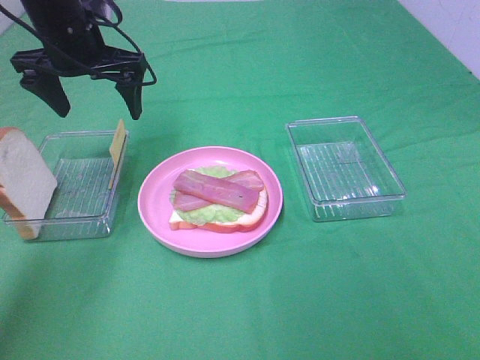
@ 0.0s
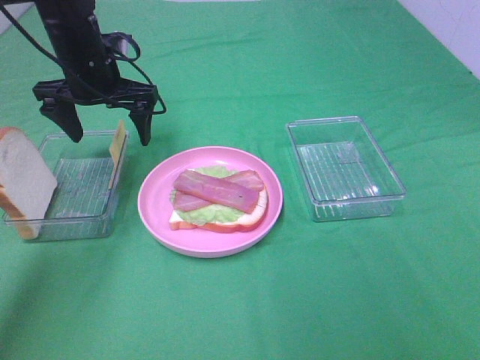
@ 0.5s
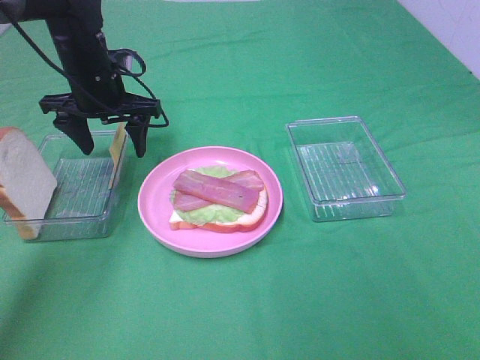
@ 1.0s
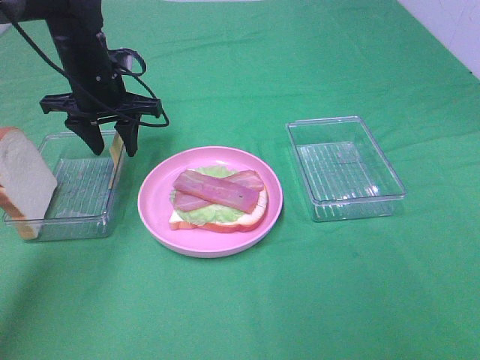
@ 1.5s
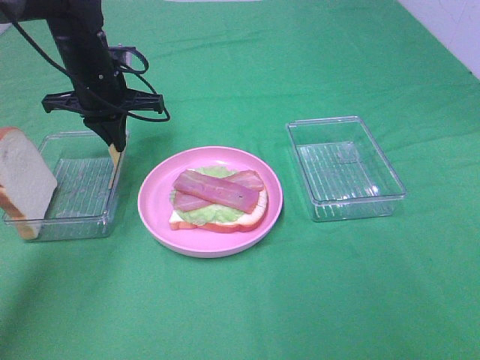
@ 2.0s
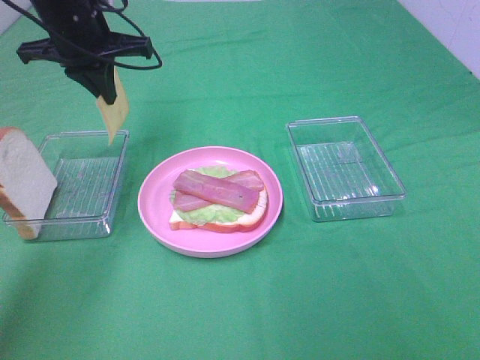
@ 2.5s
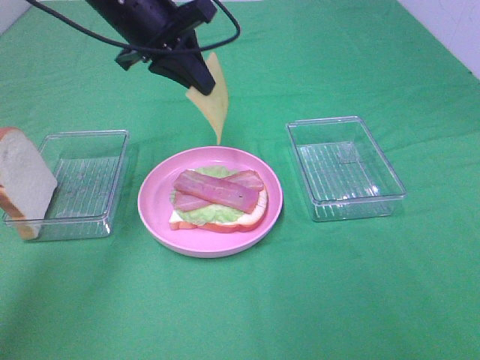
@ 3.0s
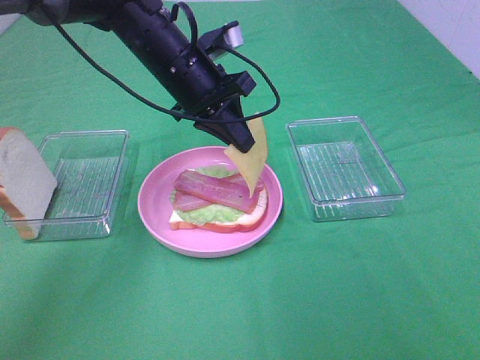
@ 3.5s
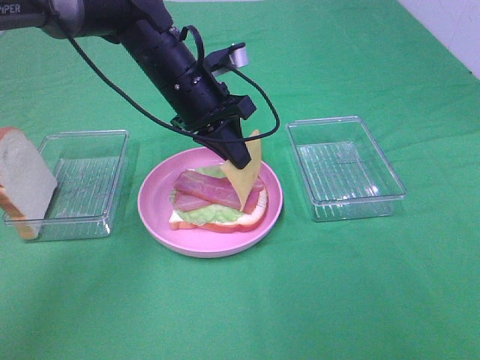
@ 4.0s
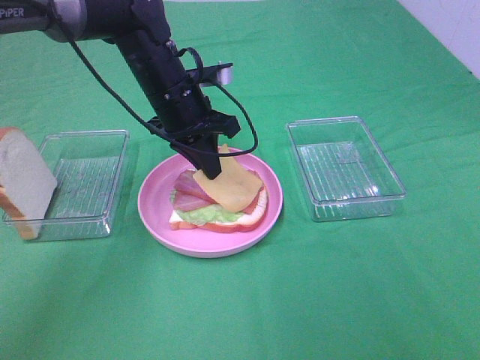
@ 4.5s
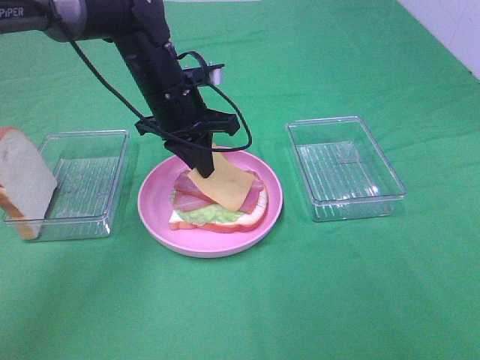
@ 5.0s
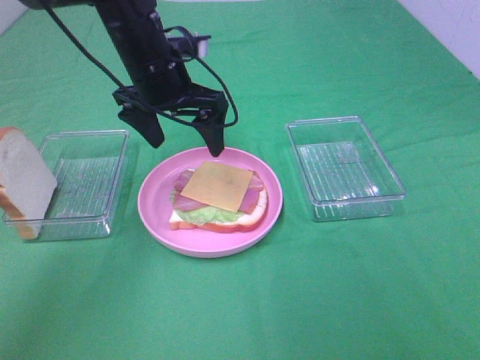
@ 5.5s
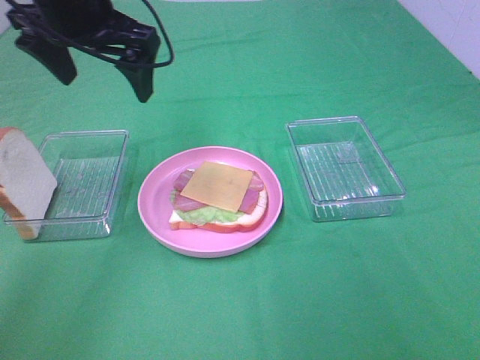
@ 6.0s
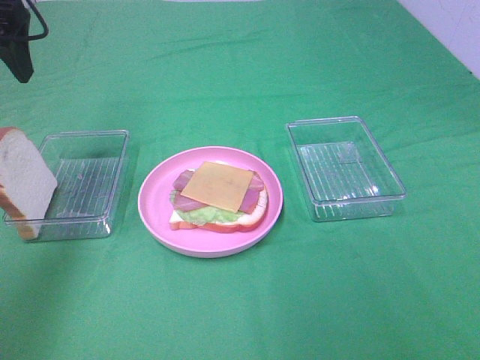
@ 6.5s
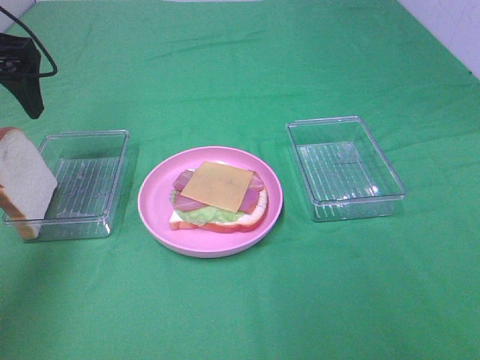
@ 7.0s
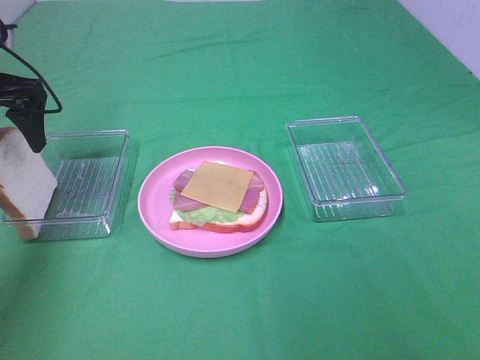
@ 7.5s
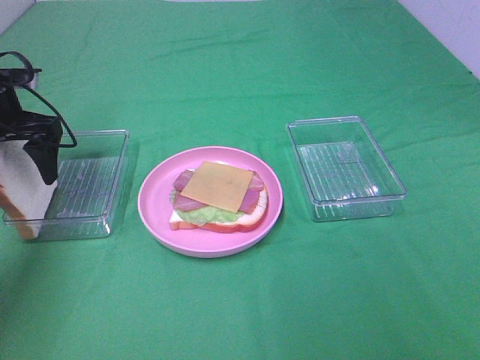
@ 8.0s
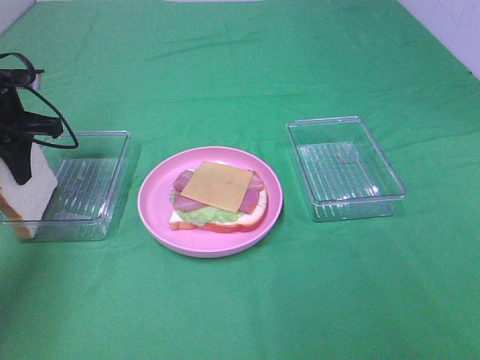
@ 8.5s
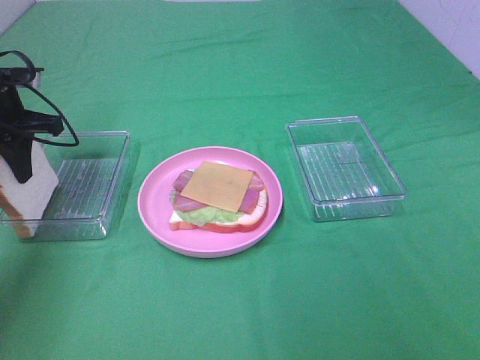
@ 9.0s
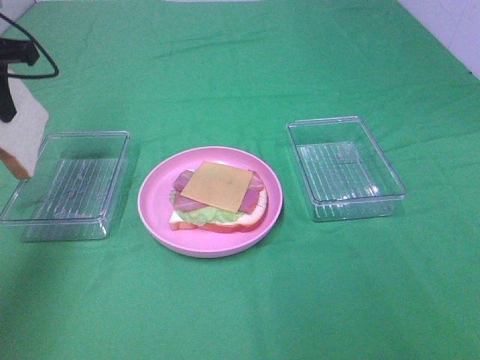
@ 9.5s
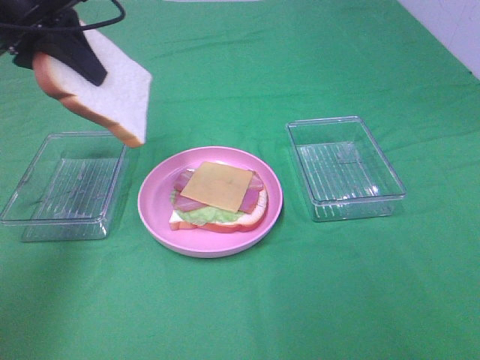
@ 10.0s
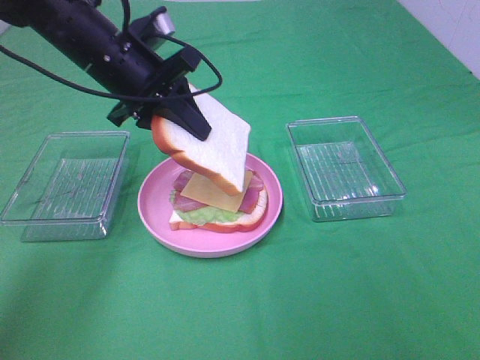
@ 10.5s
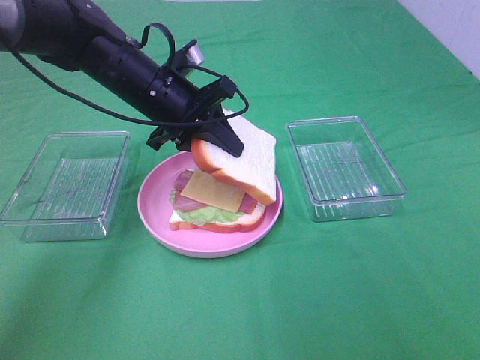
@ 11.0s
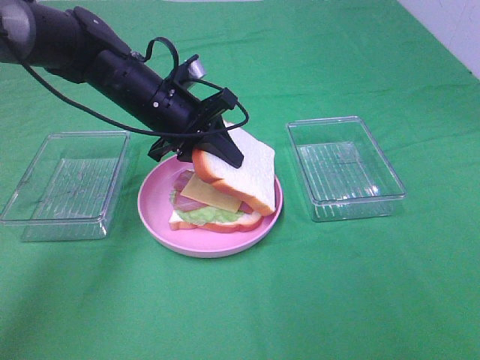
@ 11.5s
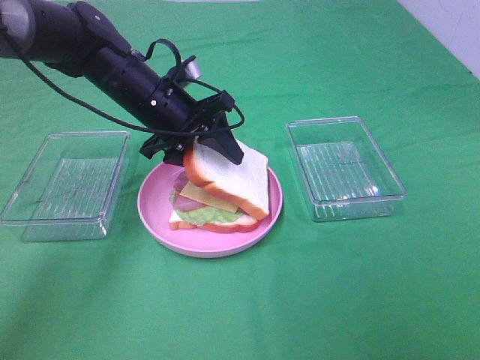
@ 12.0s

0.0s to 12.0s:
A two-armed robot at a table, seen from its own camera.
Task of the whole recording: Make sandwiches.
Step, 0.0s to 2.0s: Left hand:grab the cheese slice.
Step, 2.5s to 5.0s: Left hand:place the cheese slice on top of the bacon.
Step, 5.5s to 9.0s: Left hand:grab the bread slice.
0.0s to 2.0s: The left gripper goes about 5 cm downward, and closes its fingers.
2.0s to 4.0s: The left gripper moves to the right, about 10 cm.
4.0s to 6.0s: The left gripper shifts about 15 cm upward and to the left, and opens up.
6.0s to 8.0s: The left gripper travels to the left and downward by about 20 cm.
8.0s to 10.0s: The left gripper heads upward and to the right, covering some 15 cm, and closes up.
10.0s to 12.0s: The left gripper travels downward and to the right by some 20 cm.

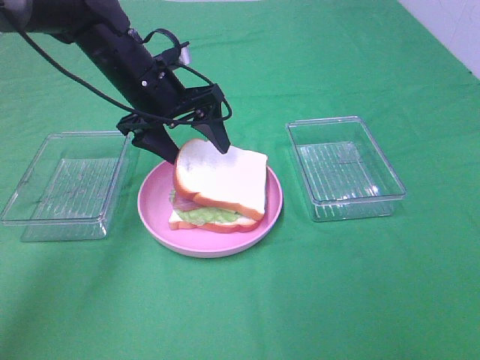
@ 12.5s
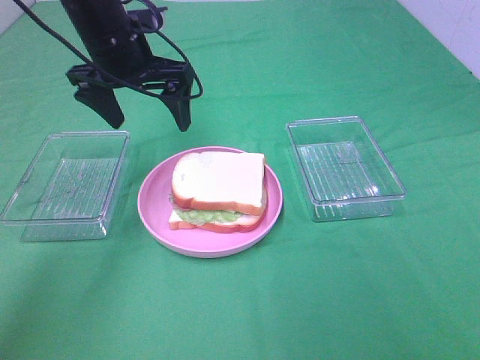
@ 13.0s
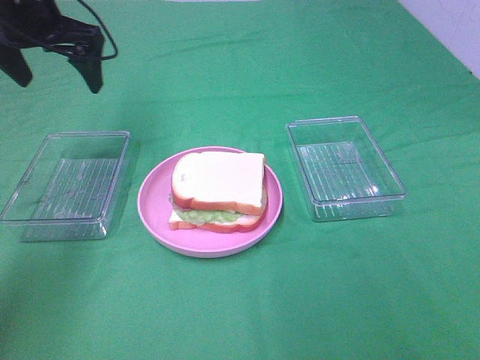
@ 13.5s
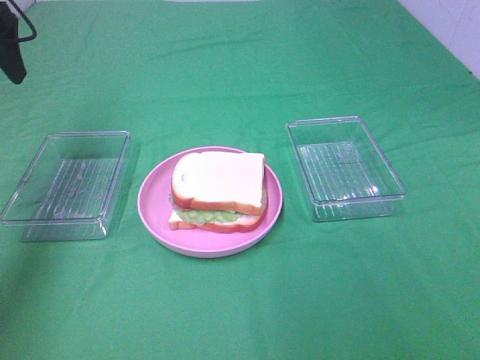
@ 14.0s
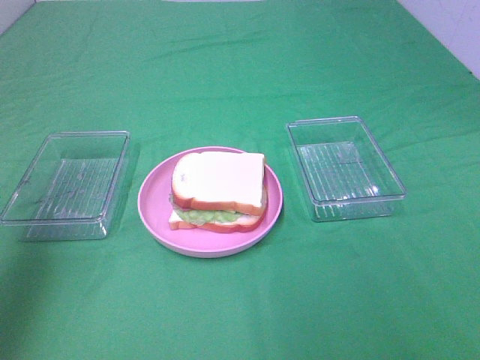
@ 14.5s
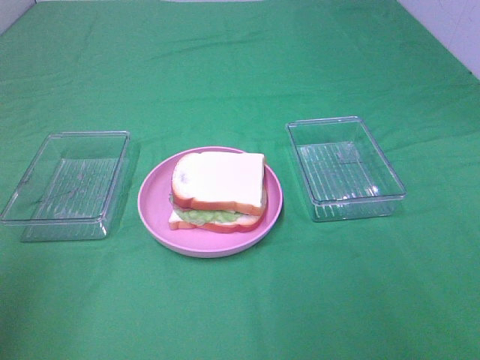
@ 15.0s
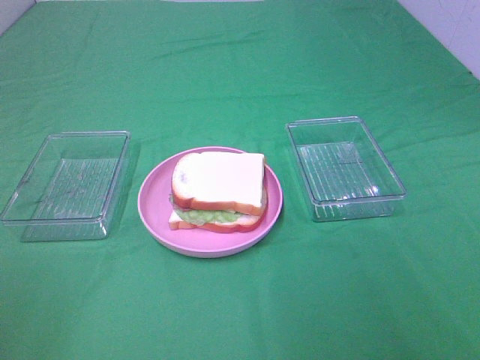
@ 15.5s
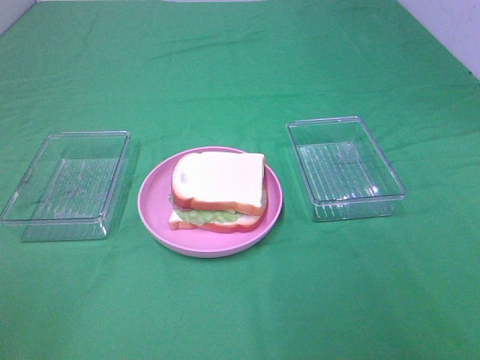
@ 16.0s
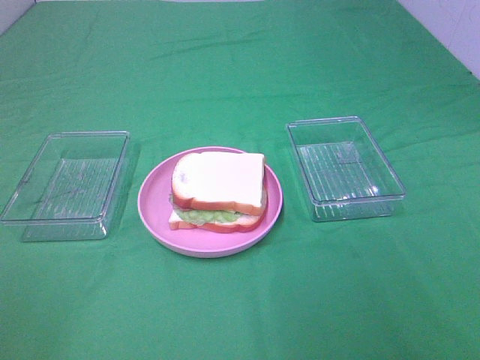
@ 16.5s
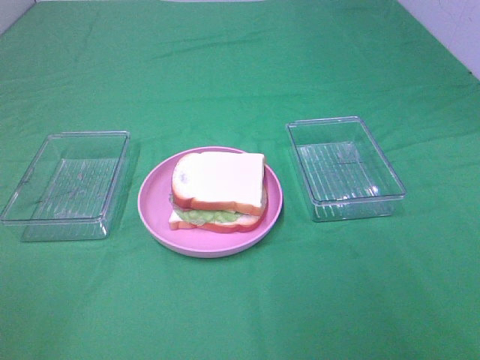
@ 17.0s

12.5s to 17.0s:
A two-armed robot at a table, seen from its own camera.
Task of the whole recording: Make sandwiches.
12.5s to 14.5s: The left gripper shifts roughly 30 cm to the left, backward and upward.
14.5s to 17.0s: The left gripper goes some 25 cm backward.

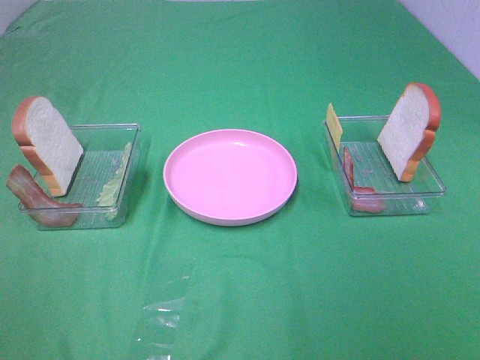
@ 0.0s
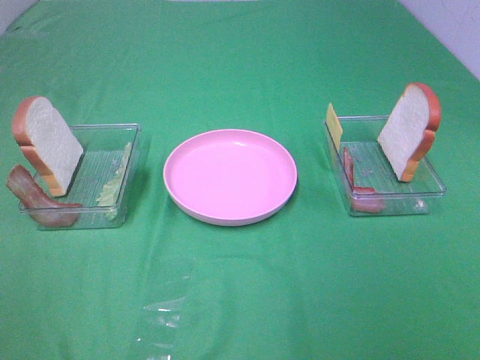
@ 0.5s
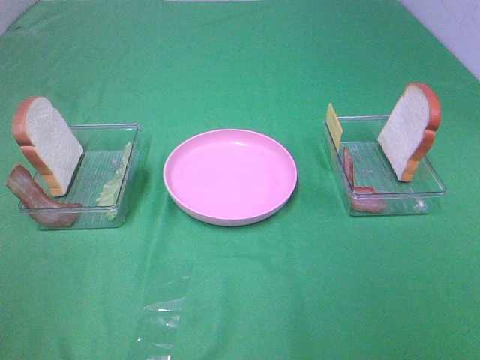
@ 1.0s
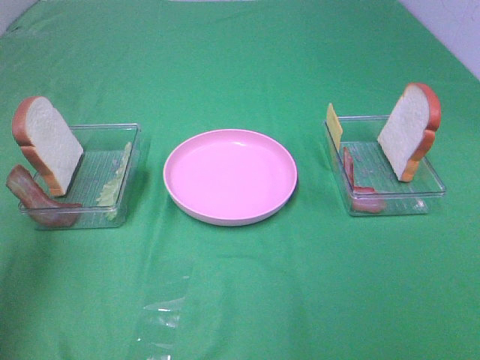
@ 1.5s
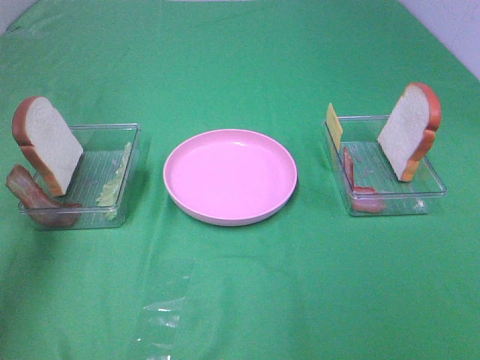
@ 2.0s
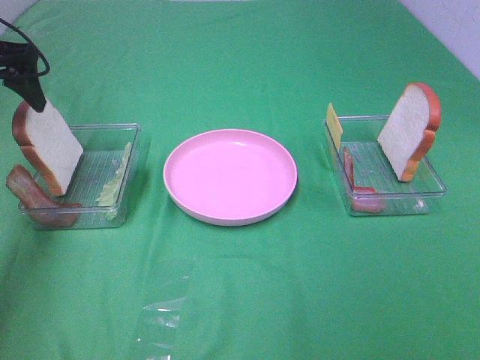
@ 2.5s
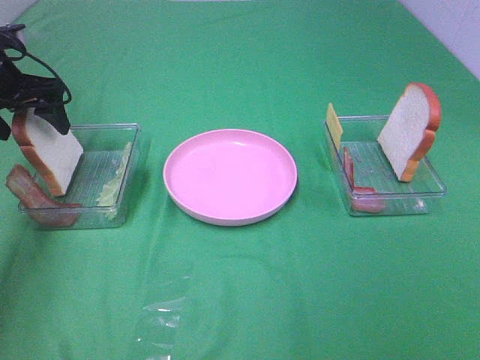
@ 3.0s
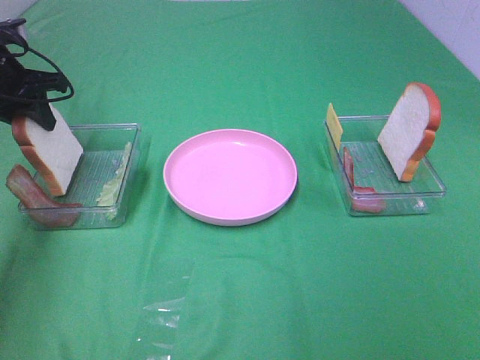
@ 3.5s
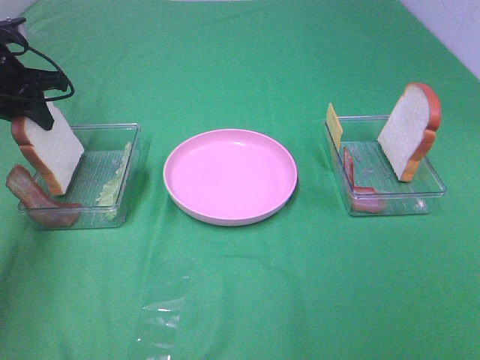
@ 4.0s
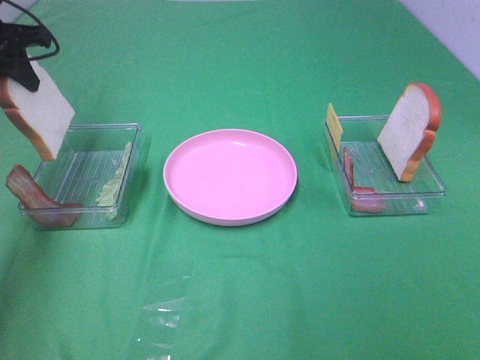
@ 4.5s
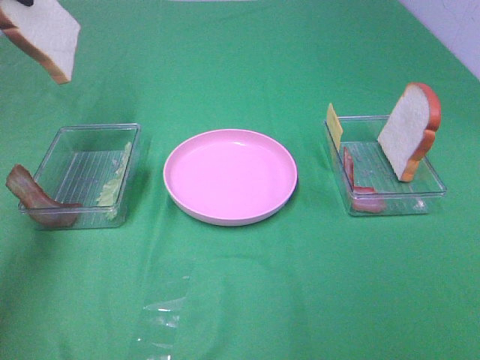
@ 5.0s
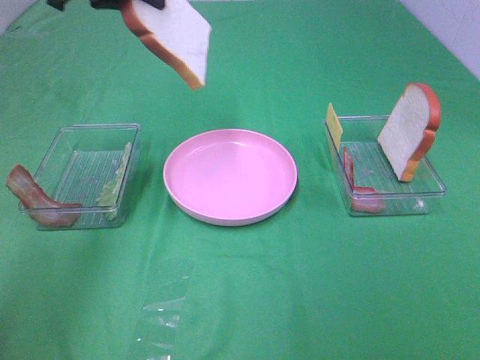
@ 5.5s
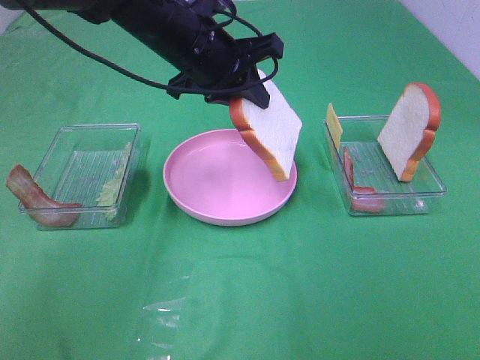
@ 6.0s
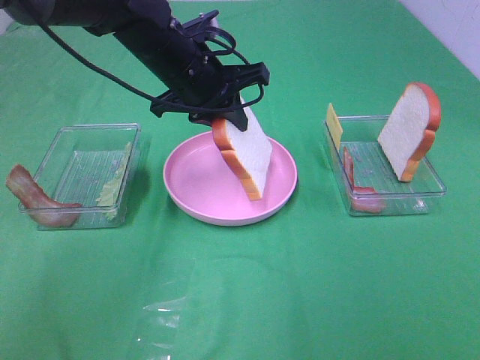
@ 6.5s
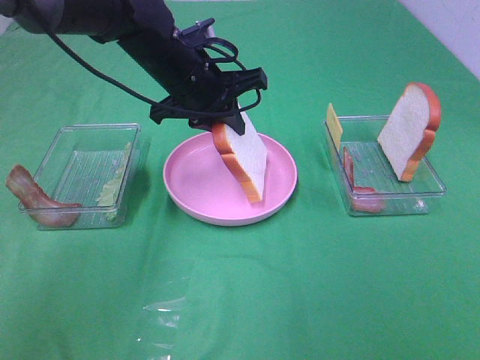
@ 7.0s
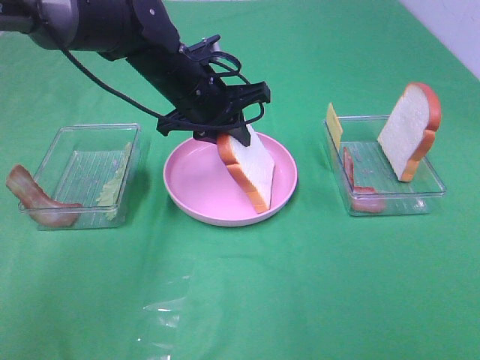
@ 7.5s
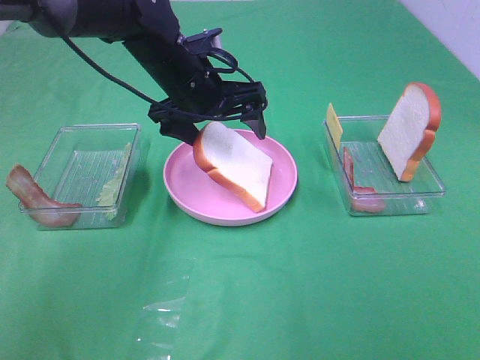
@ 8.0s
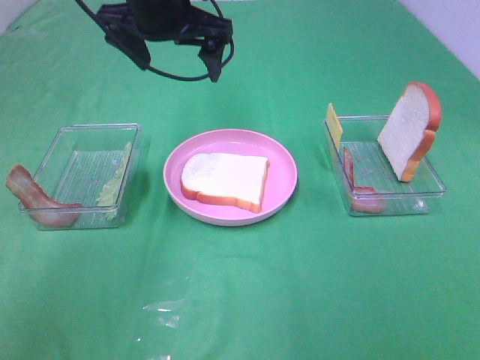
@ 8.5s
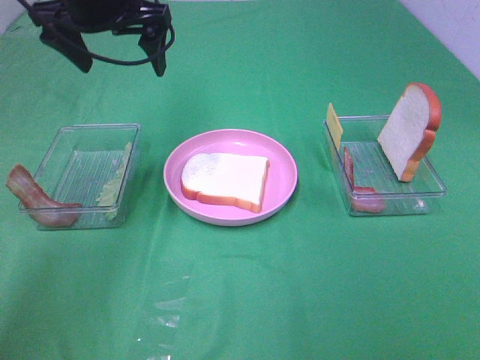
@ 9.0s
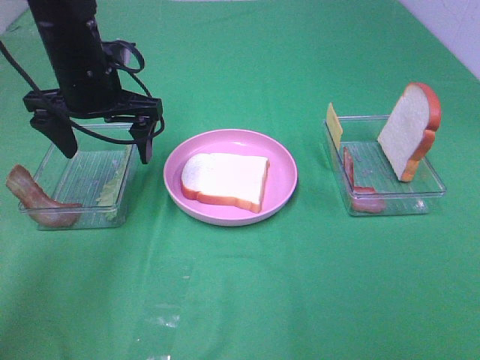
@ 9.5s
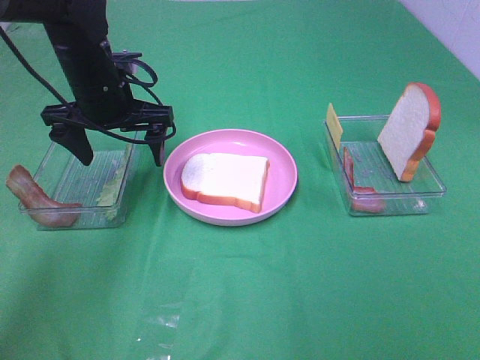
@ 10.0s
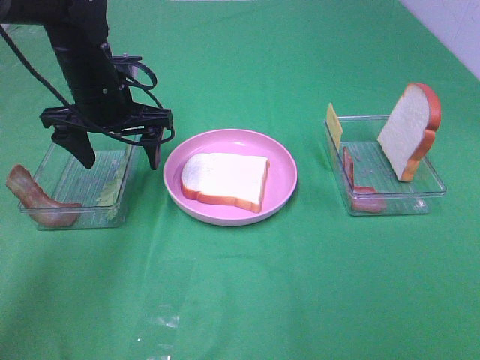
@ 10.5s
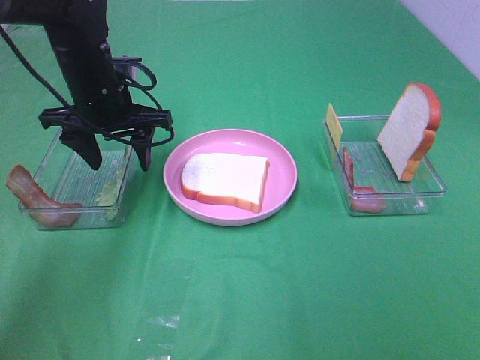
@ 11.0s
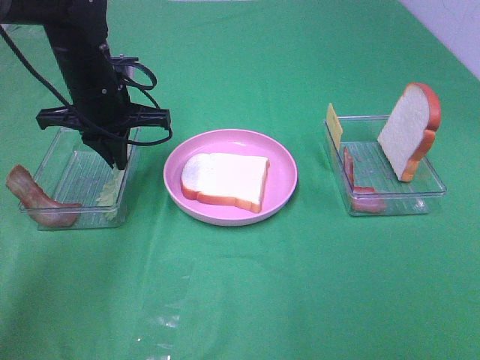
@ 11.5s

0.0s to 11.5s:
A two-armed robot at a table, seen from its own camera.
Task of the whole recording: Make sandwiches.
Step, 0.0s to 3.5s: Left hand:grab the bread slice.
Step, 4.0s to 8.0s: Left hand:place the bread slice on the plate.
0.0s to 2.0s: The left gripper heads forward, covering some 35 cm.
2.0s to 4.0s: The left gripper moves downward and forward, approximately 15 cm, and closes its fingers.
4.0s to 6.0s: The left gripper goes roughly 25 cm to the right.
6.0s to 7.5s: The left gripper heads downward, covering some 5 cm.
7.5s to 9.5s: The left gripper shifts approximately 10 cm to the left, reaches approximately 10 cm upward, then returns, and opens its fingers.
9.5s to 11.5s: The left gripper closes up.
